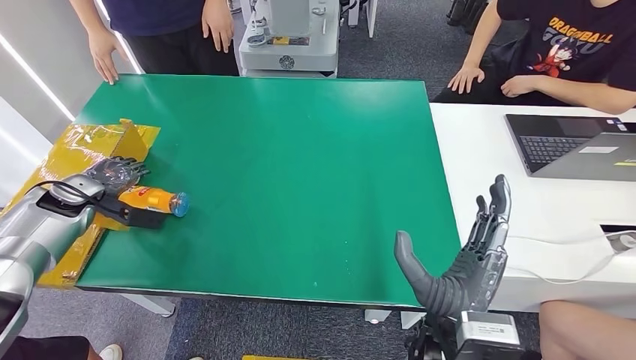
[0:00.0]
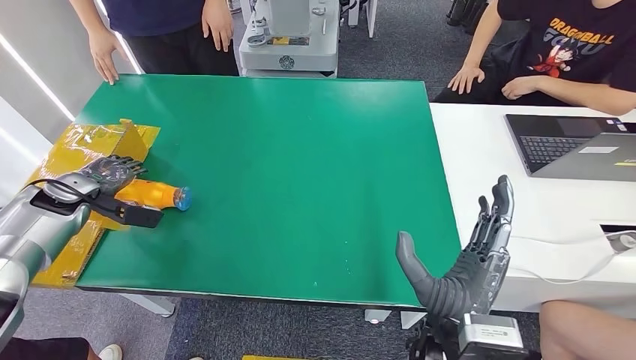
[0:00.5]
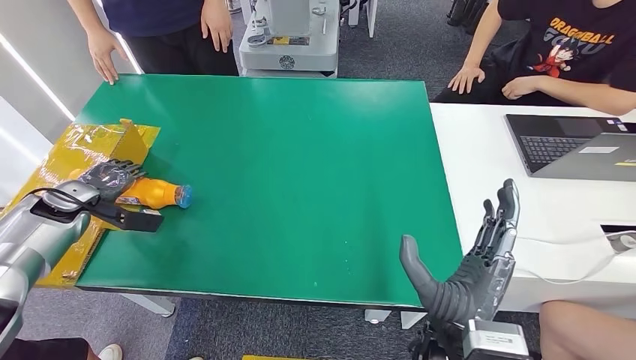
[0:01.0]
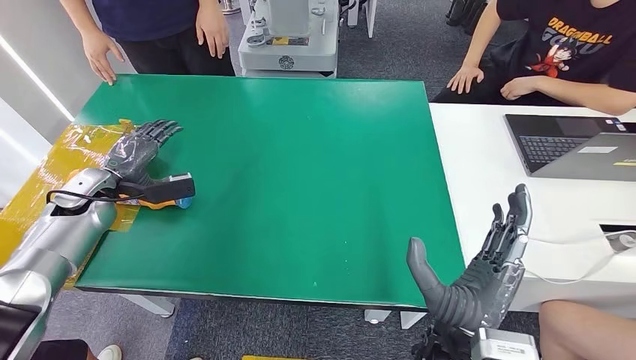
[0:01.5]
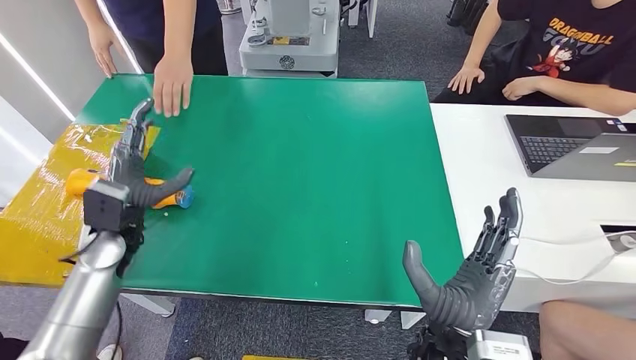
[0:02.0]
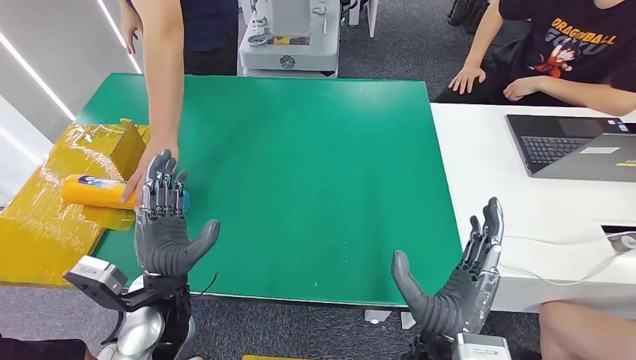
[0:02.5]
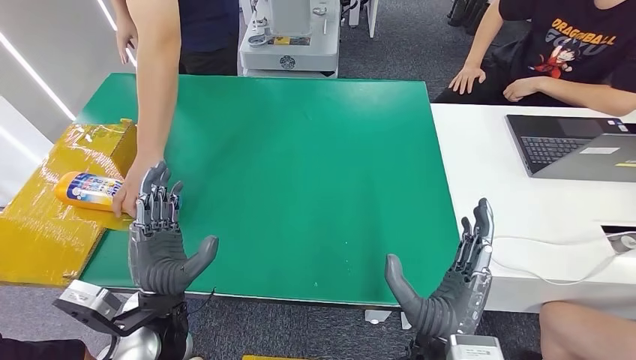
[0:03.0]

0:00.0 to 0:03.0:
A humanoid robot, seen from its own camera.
Step, 0:00.0 to 0:03.0: Turn the bottle to the front side.
0:00.0 to 0:01.5: The left hand moves to the right, about 5 cm.

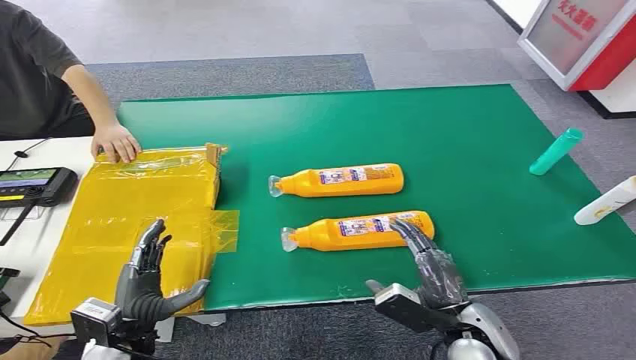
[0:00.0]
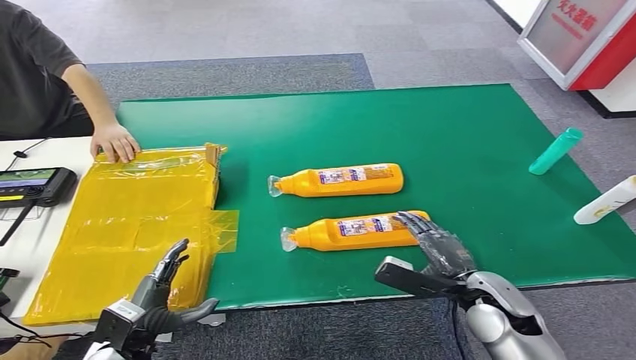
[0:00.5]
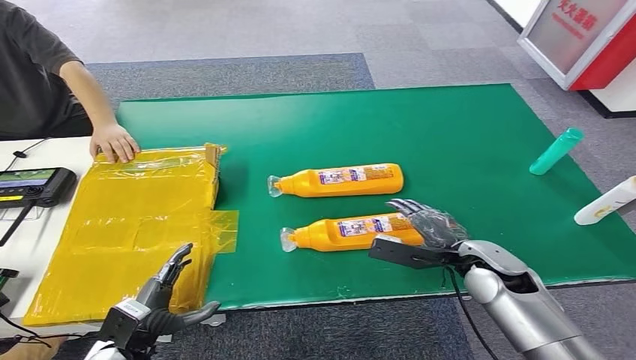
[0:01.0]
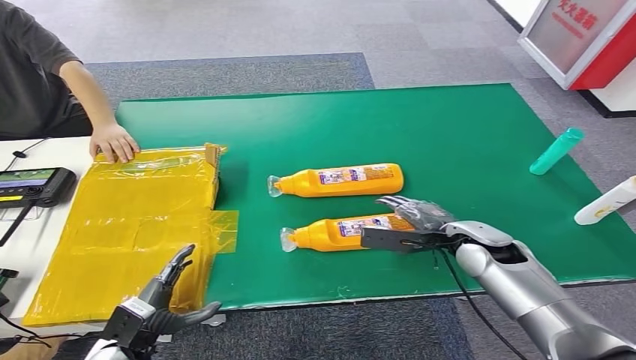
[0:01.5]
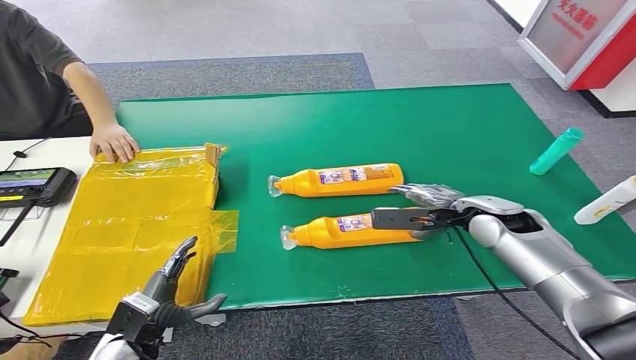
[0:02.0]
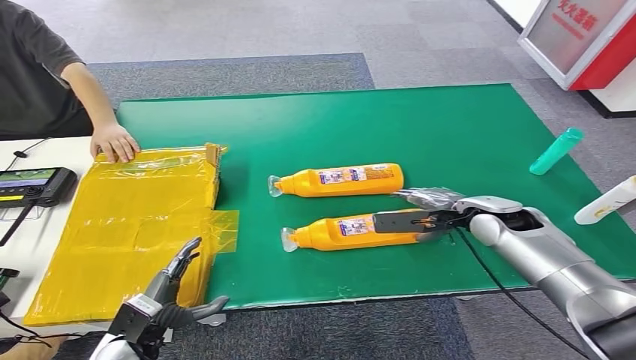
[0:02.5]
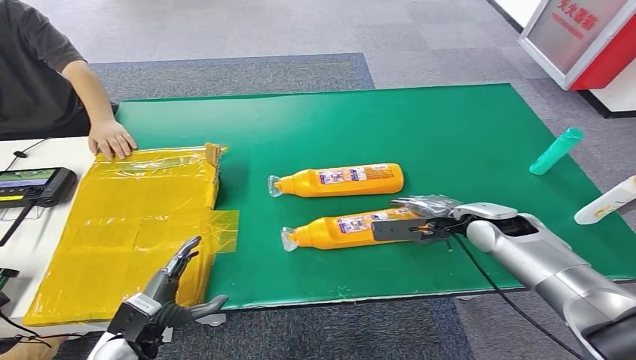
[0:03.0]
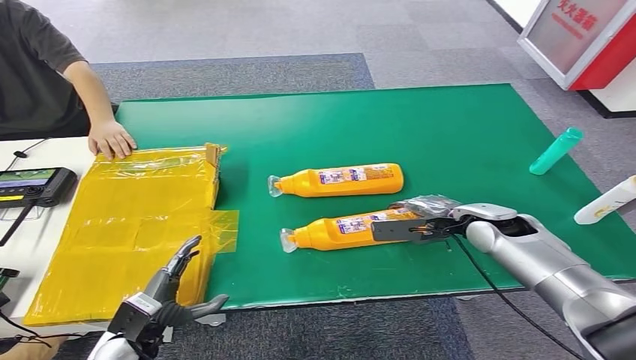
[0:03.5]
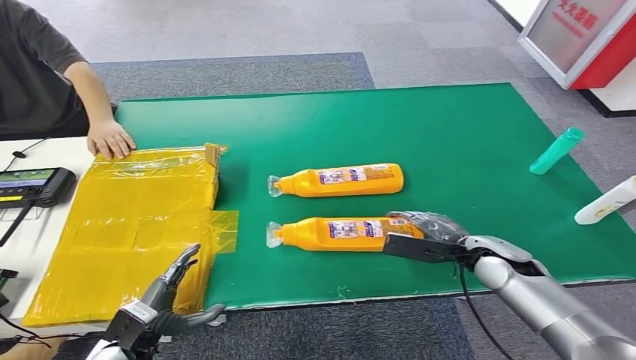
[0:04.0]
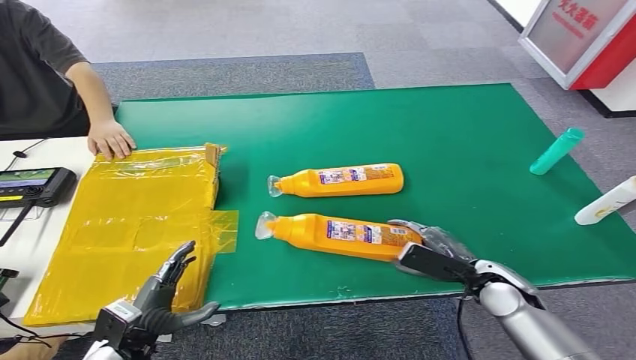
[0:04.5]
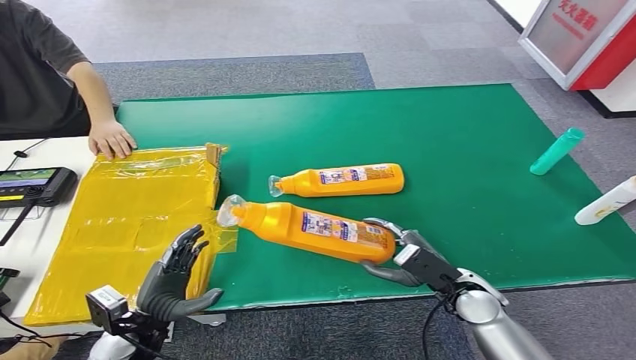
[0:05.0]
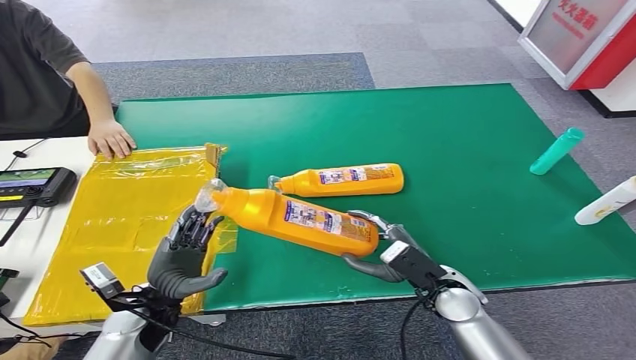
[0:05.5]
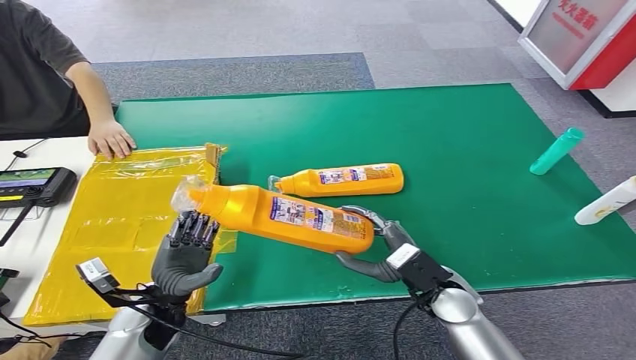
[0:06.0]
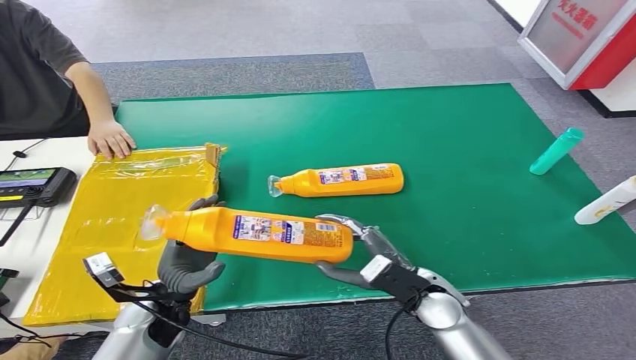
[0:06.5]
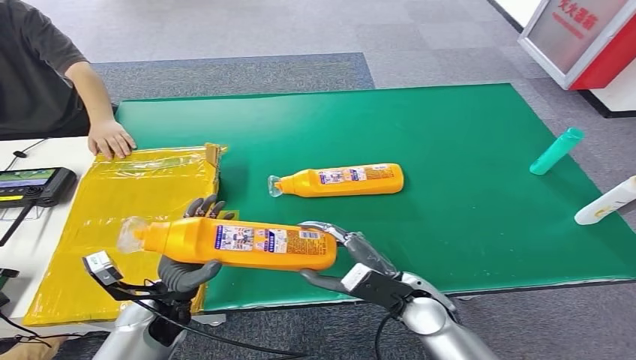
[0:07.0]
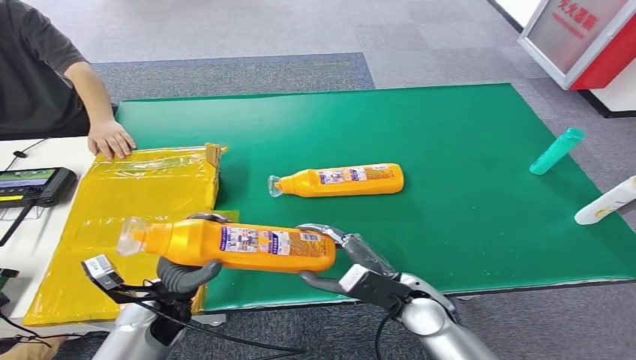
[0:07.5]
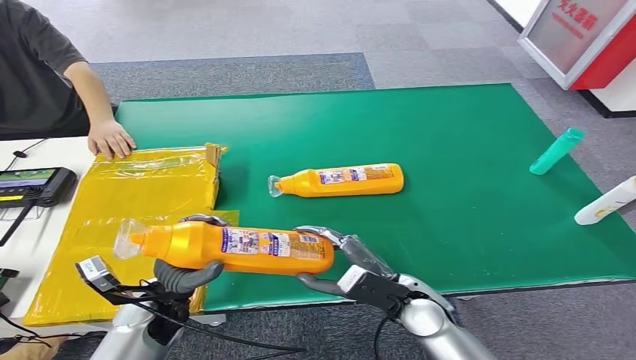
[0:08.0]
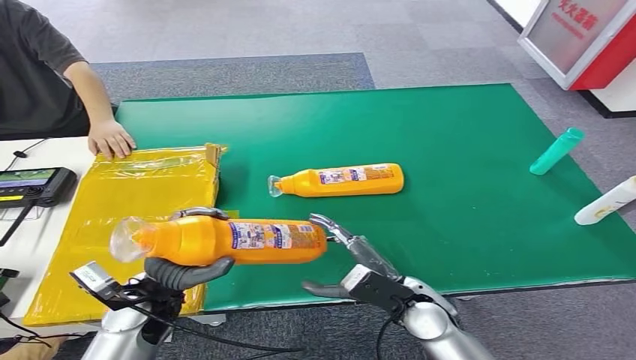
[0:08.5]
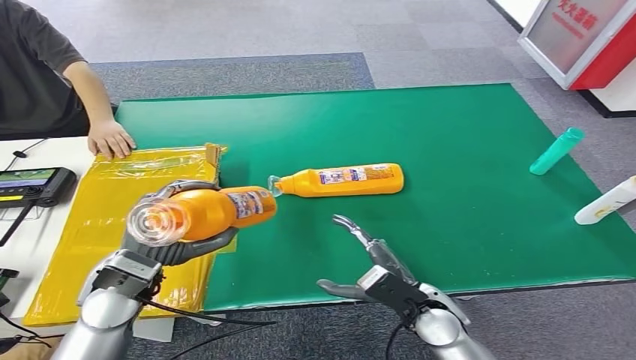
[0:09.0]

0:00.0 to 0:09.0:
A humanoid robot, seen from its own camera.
Step, 0:00.0 to 0:06.0: Pick up the bottle from the table.
0:02.0 to 0:04.5: The right hand heads backward and downward, covering approximately 15 cm.
0:04.5 to 0:07.0: The right hand moves to the left, roughly 15 cm; the left hand goes about 10 cm forward and to the right.
0:07.0 to 0:09.0: The left hand travels upward by roughly 10 cm.

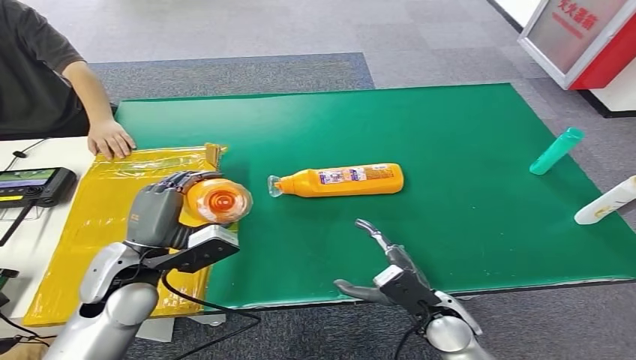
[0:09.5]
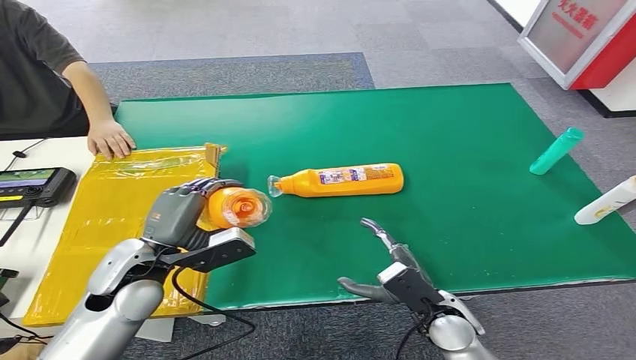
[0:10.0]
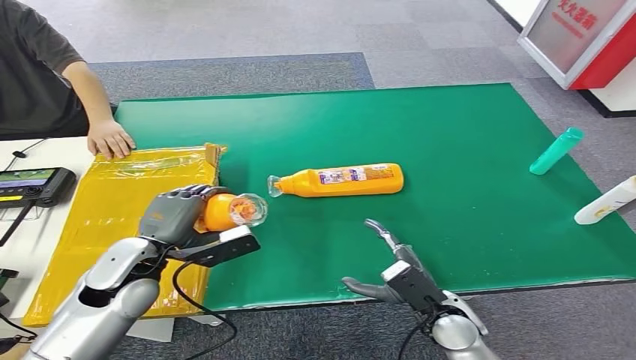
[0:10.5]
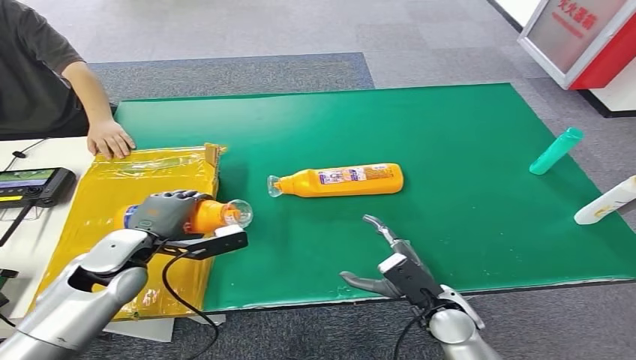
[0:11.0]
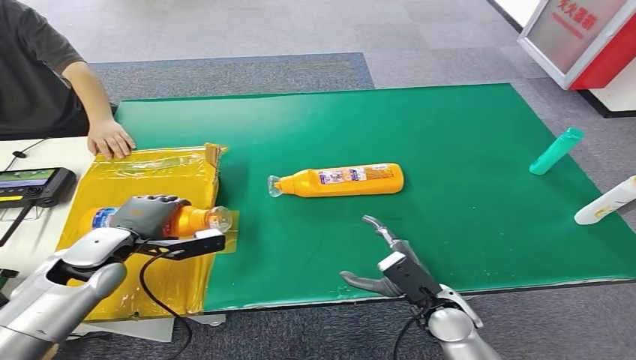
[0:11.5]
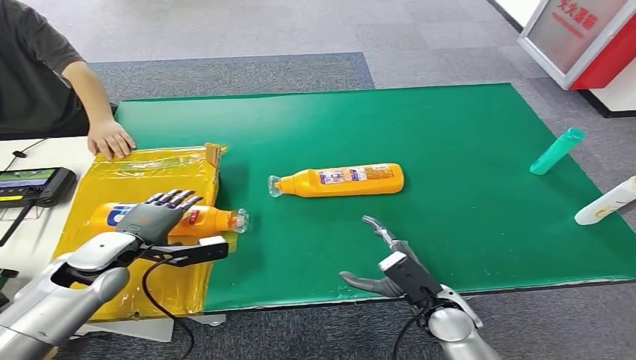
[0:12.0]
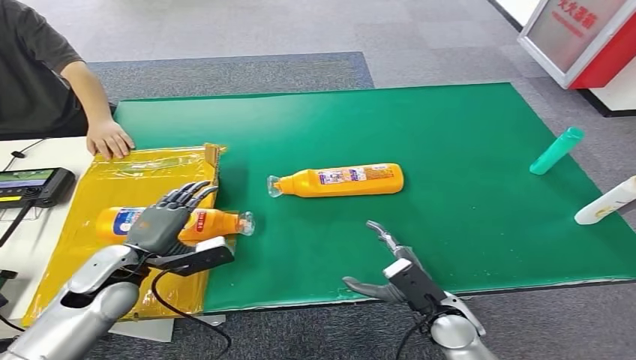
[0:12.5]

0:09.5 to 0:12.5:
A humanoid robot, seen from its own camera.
Step, 0:09.5 to 0:12.5: Turn the bottle to the front side.
0:09.5 to 0:11.0: The left hand shifts by approximately 5 cm.
